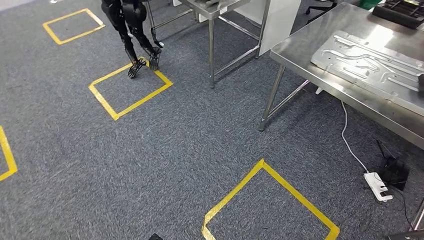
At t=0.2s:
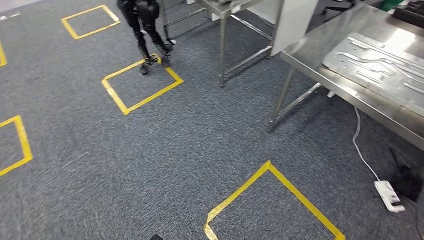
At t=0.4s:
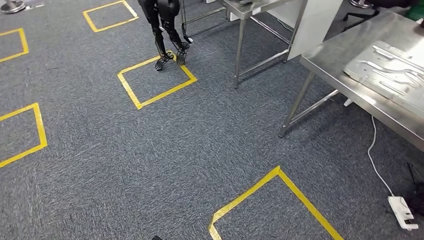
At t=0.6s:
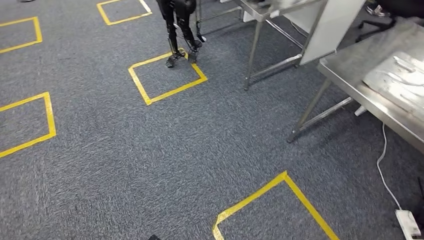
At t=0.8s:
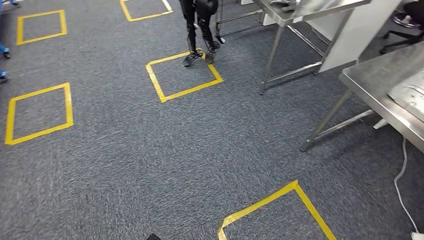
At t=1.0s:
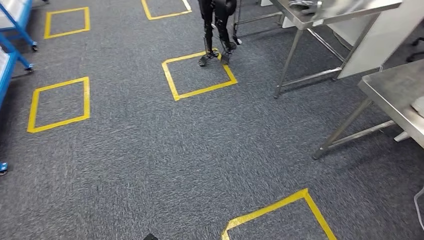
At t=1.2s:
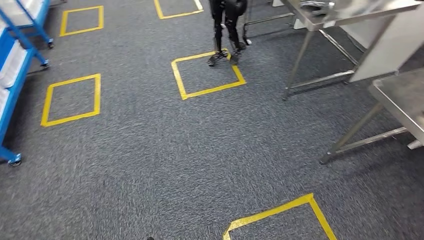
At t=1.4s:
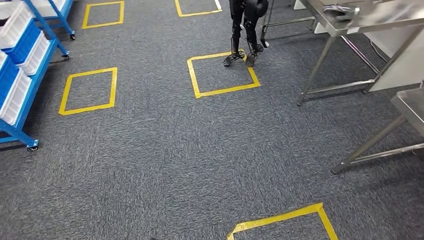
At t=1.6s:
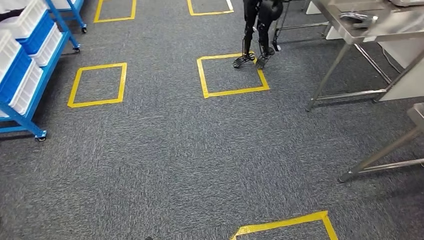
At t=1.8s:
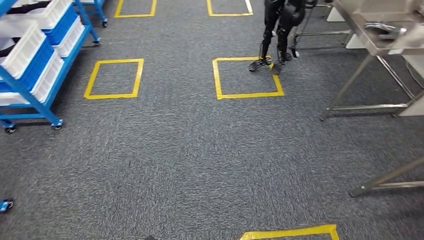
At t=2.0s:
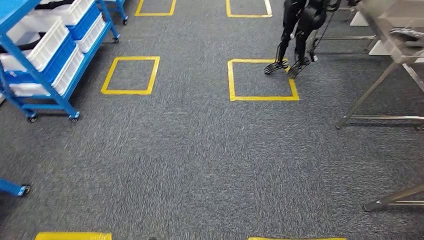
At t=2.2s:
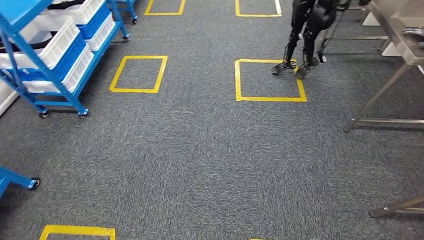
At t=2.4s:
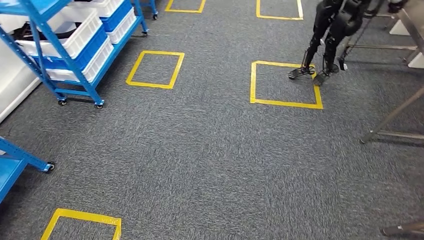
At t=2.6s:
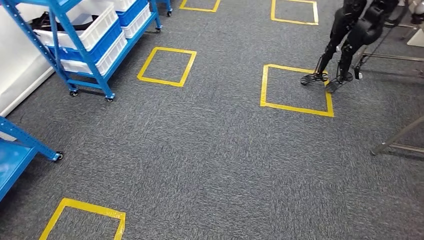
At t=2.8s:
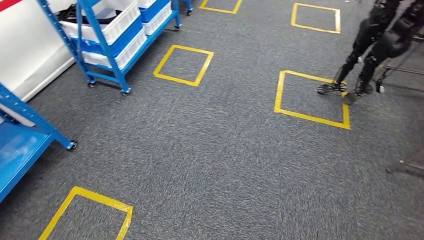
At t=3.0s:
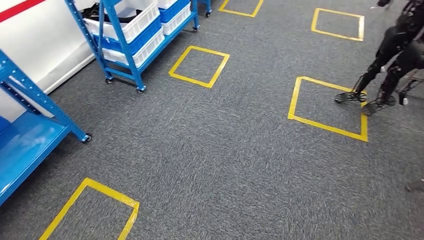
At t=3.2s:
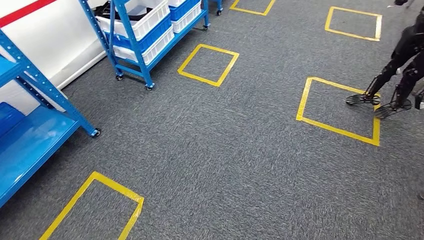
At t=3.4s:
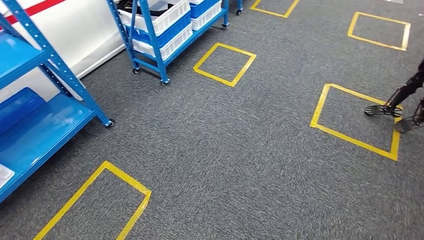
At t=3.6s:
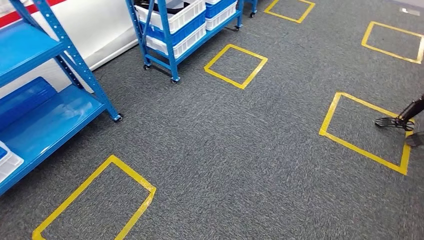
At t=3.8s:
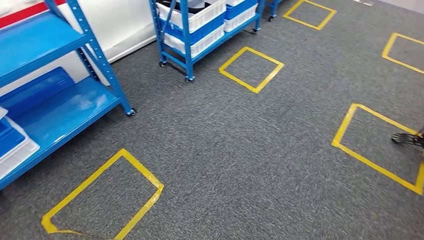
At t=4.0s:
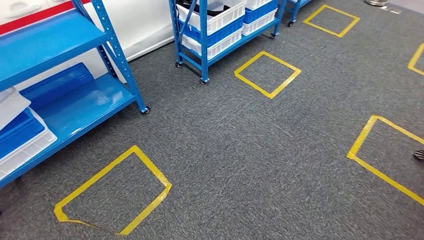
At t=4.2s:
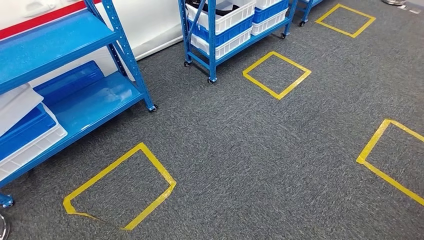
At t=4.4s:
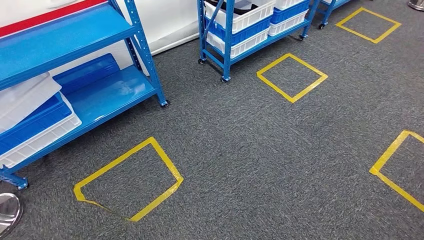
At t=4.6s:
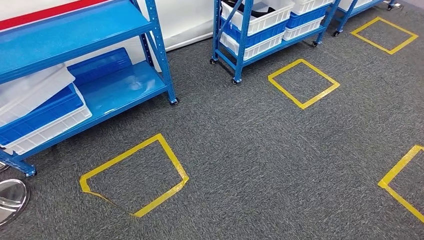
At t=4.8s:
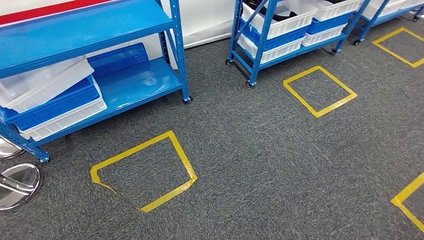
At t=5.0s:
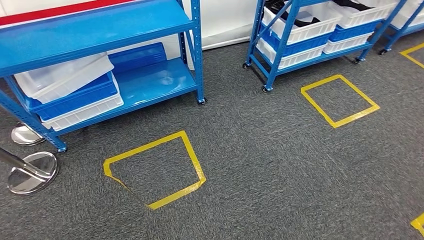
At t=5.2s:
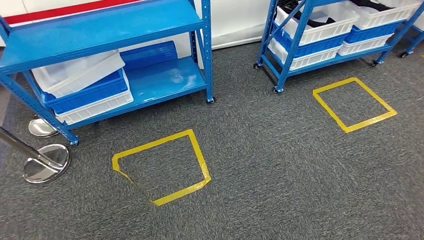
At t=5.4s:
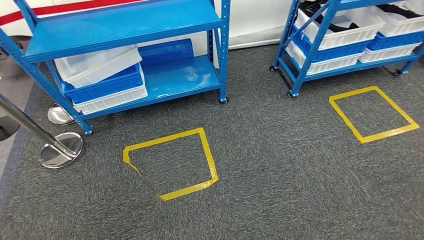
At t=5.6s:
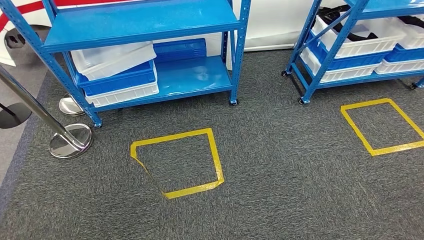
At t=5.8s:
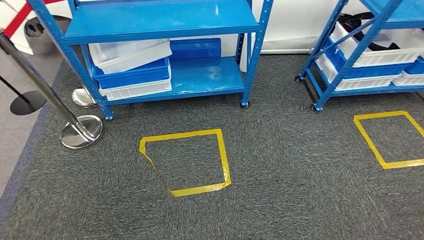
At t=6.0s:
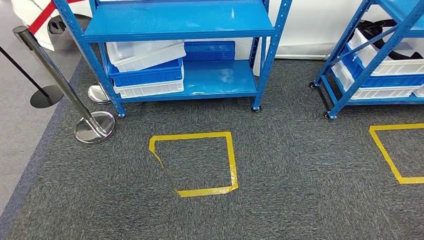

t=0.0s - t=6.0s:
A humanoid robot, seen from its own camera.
Step, t=0.0s - t=6.0s: Return to the initial position at the shelf.

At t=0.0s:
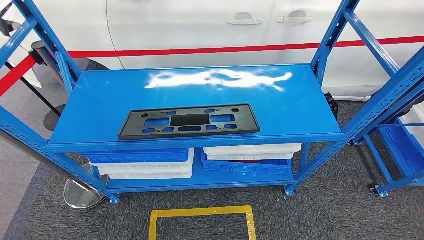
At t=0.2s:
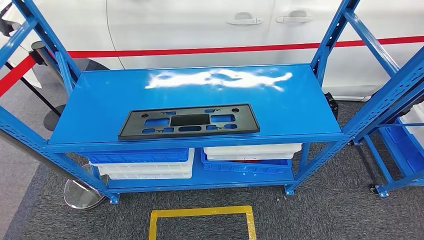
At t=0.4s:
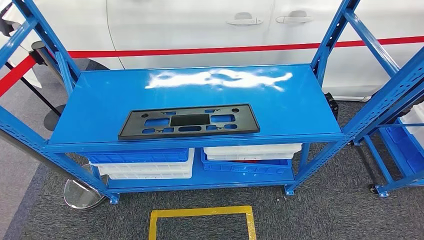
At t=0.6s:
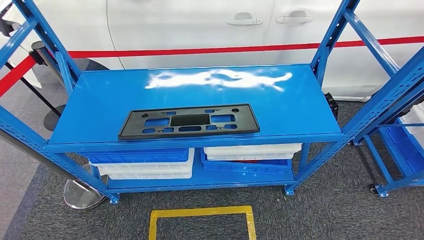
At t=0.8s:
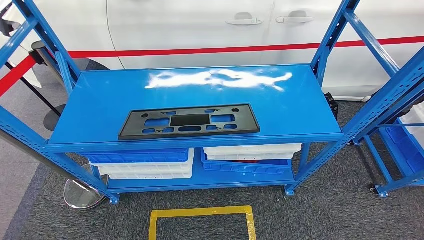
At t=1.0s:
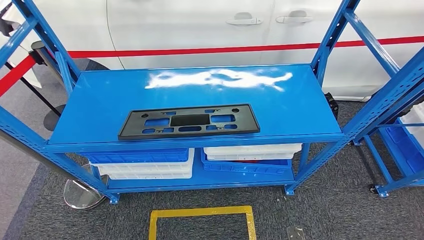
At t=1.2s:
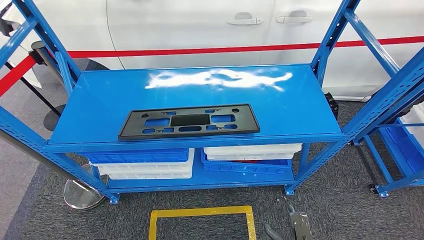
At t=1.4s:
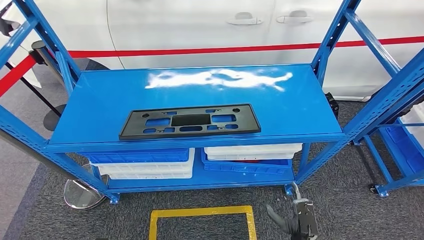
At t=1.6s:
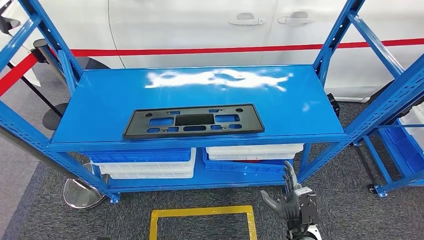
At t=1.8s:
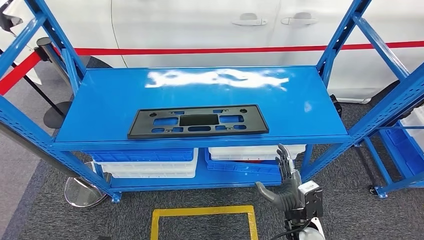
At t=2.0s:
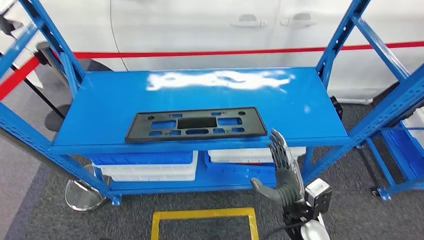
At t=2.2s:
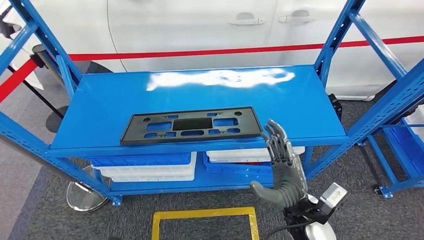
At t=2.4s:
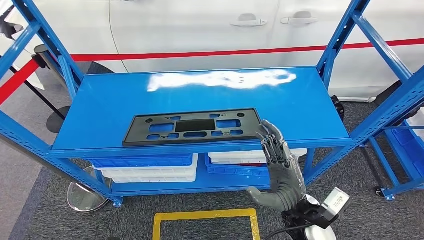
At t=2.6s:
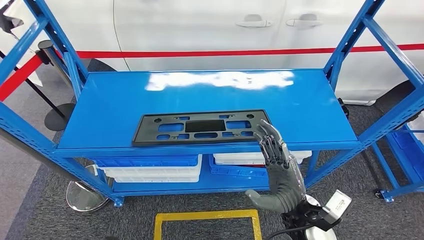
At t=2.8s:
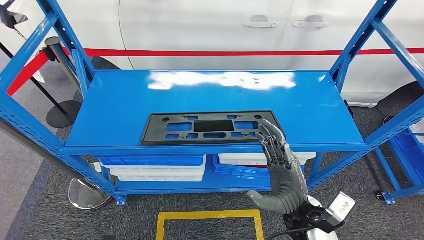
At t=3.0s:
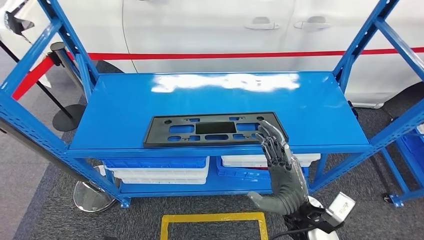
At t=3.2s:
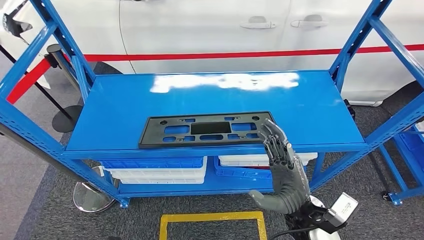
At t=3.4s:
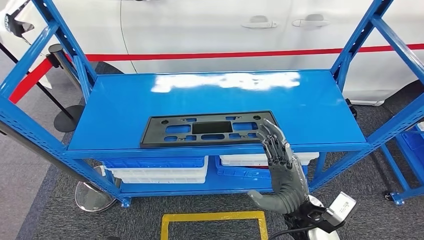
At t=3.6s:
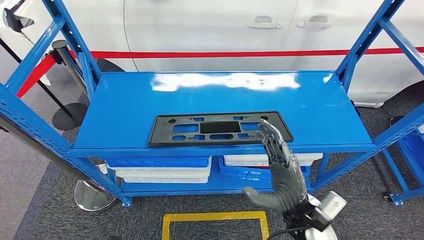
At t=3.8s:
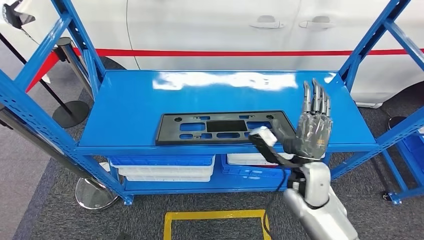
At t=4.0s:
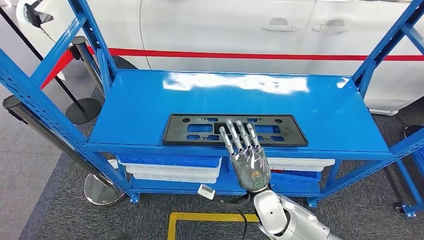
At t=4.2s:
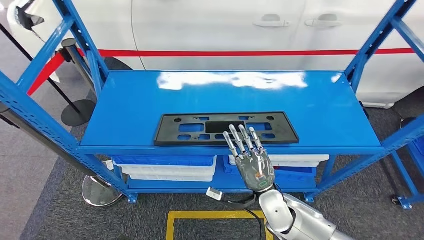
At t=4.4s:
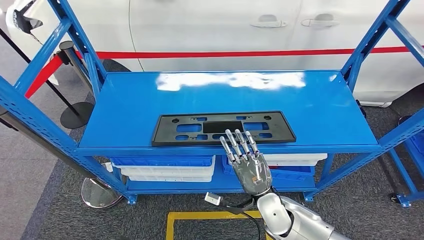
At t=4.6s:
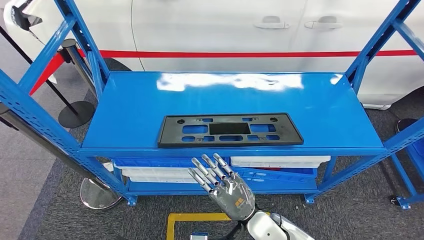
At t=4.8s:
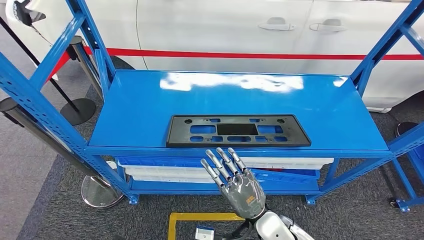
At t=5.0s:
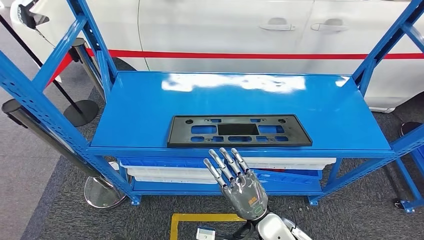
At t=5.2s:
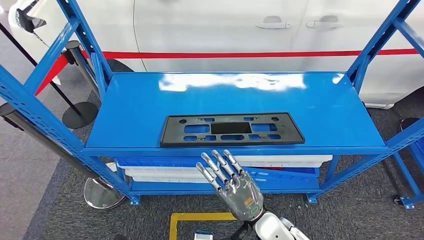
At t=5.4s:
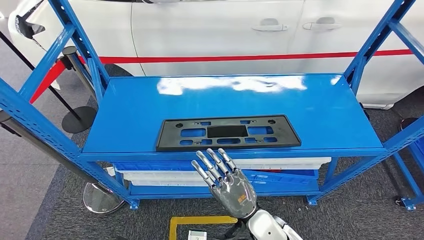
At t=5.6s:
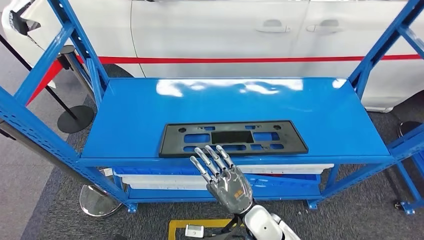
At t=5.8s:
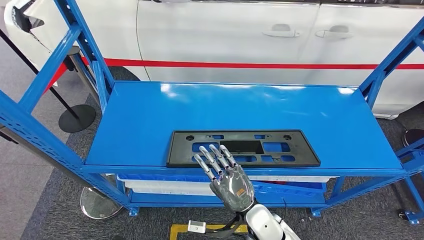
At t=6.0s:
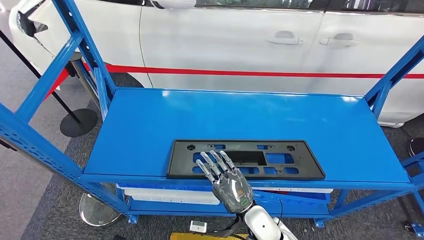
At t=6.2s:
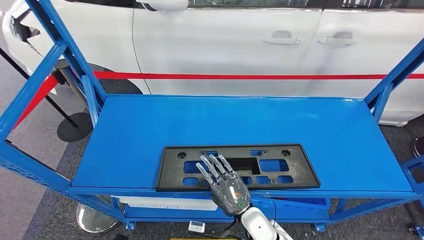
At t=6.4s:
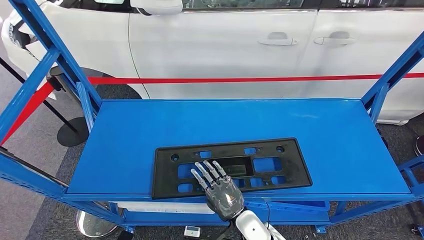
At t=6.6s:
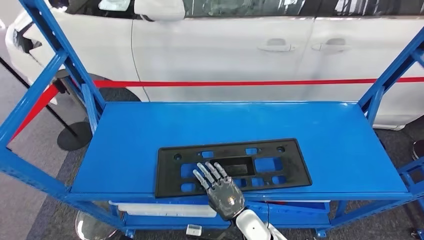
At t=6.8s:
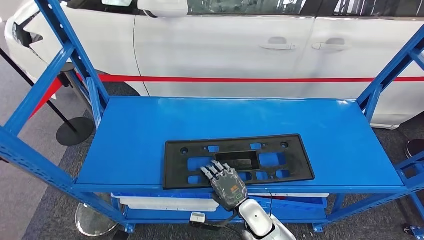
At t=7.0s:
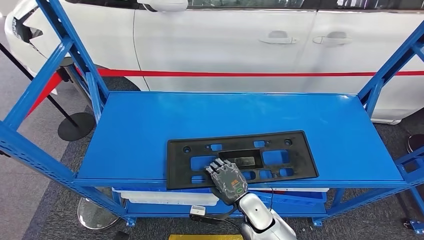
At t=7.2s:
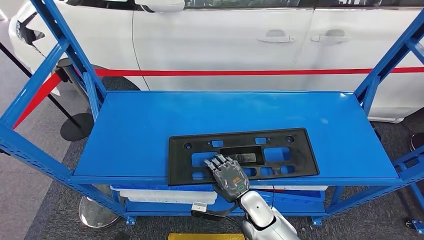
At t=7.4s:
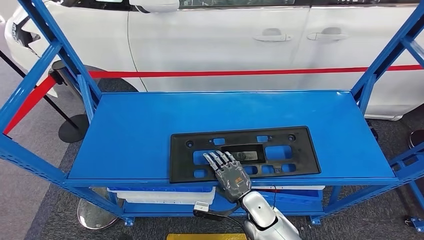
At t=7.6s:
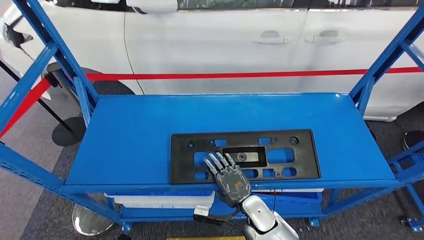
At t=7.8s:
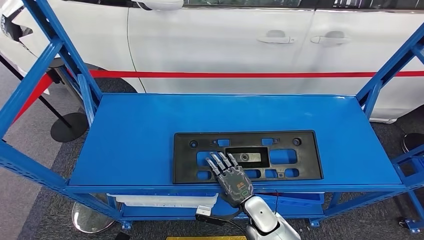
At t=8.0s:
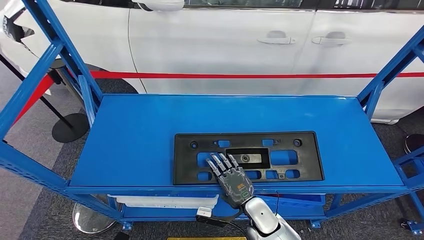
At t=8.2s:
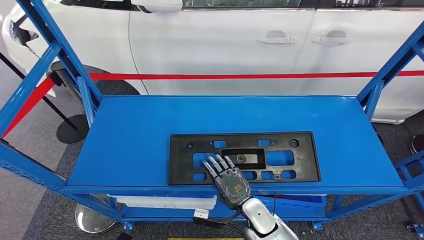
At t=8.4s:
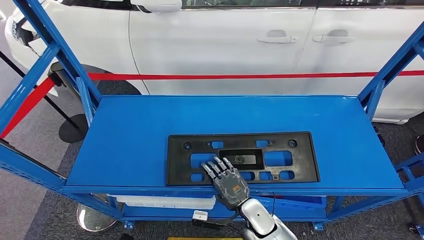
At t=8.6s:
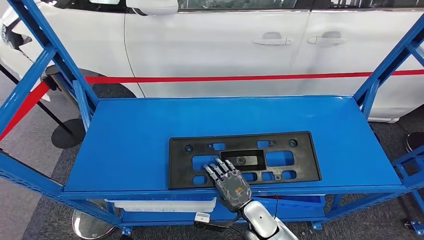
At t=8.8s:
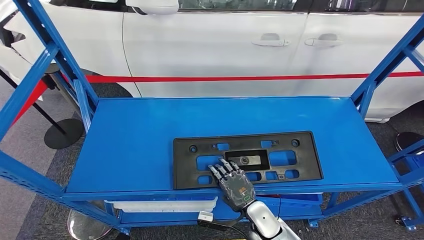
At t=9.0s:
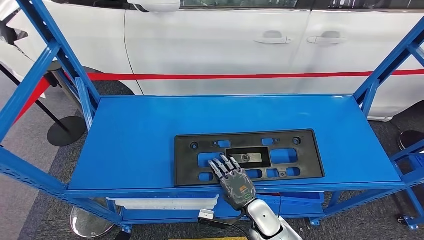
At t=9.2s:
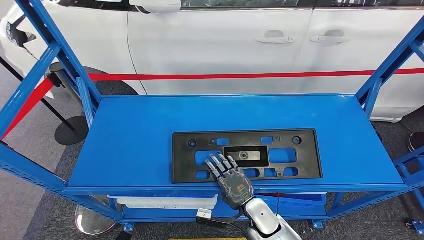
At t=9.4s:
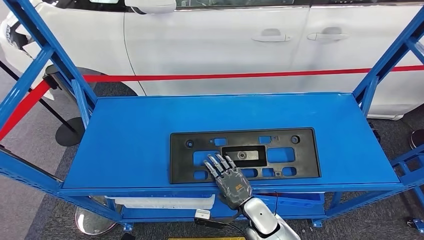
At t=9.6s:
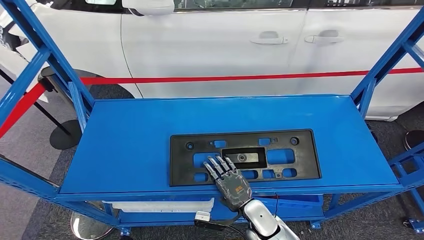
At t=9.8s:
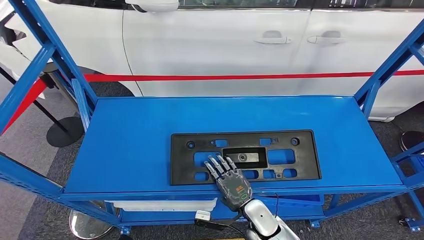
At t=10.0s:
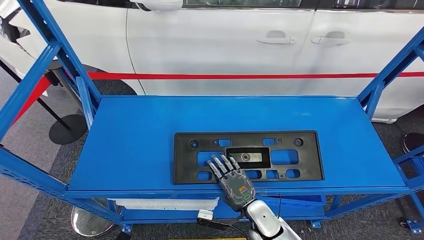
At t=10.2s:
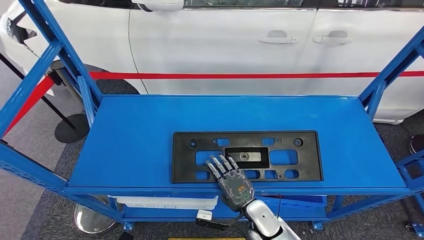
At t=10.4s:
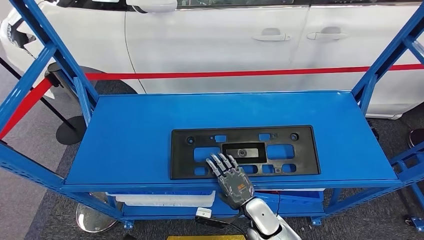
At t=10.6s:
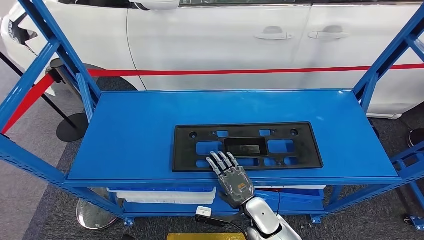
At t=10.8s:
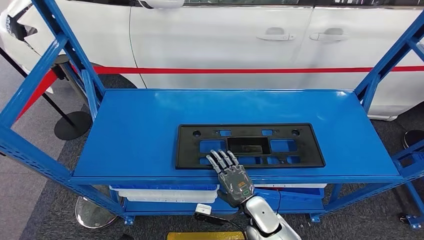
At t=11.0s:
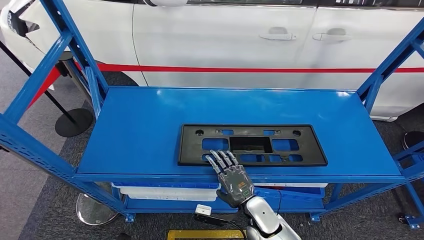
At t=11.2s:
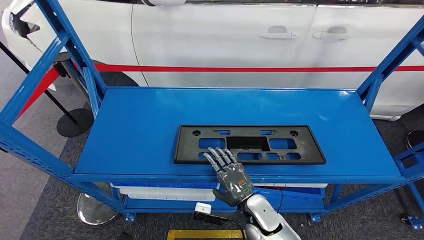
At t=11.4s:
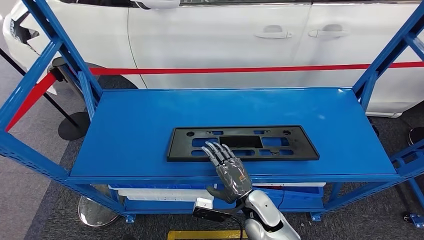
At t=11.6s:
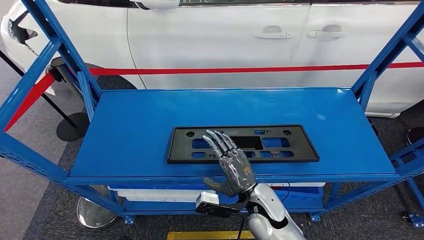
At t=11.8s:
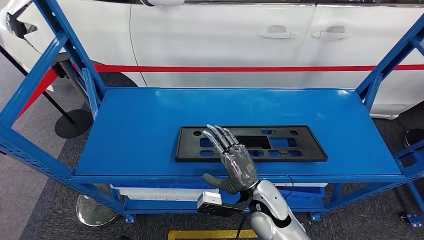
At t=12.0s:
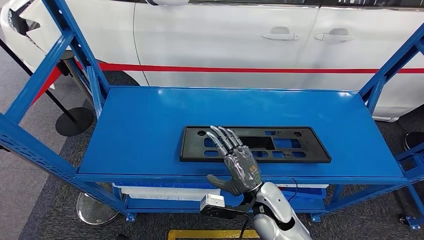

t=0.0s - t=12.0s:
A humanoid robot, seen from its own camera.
t=7.6s - t=9.0s: The hands stay close to where they were, moving slightly.
